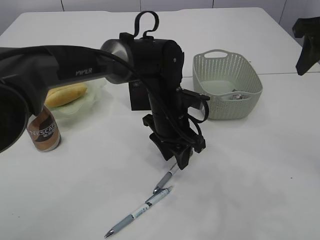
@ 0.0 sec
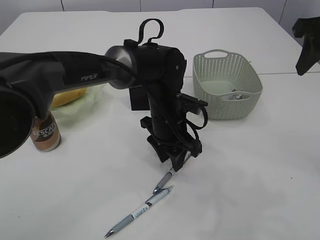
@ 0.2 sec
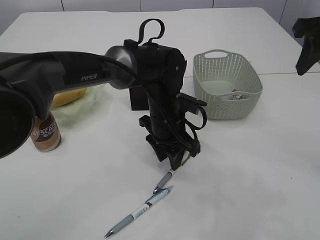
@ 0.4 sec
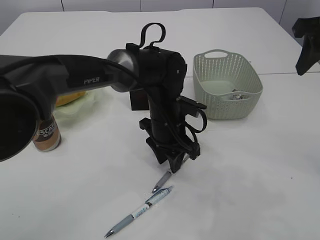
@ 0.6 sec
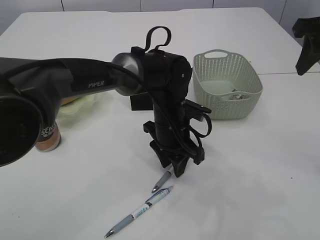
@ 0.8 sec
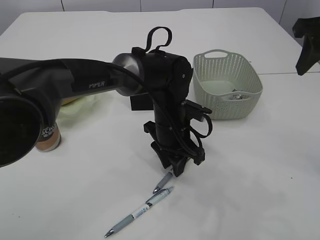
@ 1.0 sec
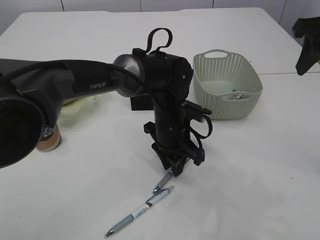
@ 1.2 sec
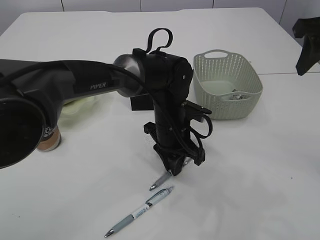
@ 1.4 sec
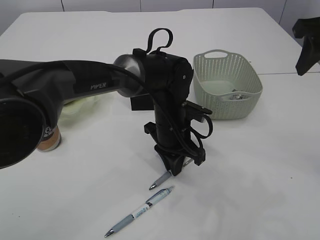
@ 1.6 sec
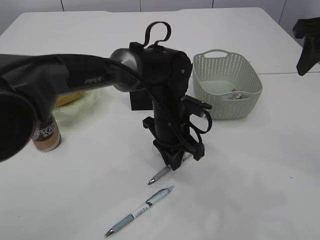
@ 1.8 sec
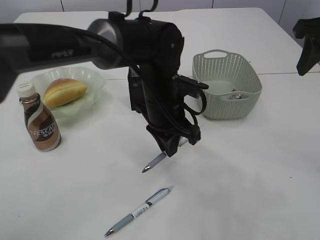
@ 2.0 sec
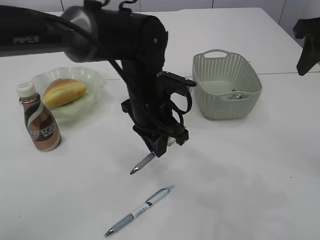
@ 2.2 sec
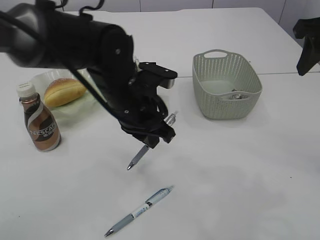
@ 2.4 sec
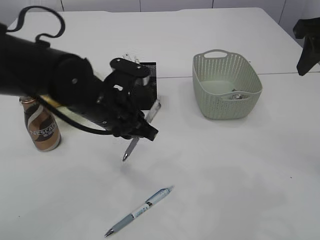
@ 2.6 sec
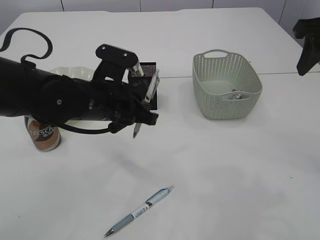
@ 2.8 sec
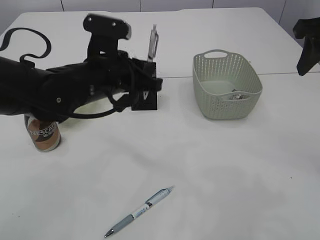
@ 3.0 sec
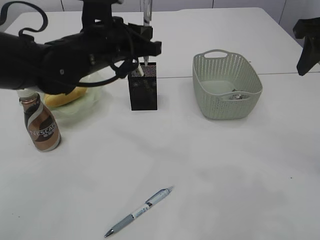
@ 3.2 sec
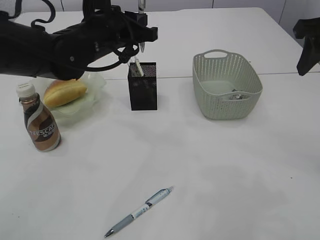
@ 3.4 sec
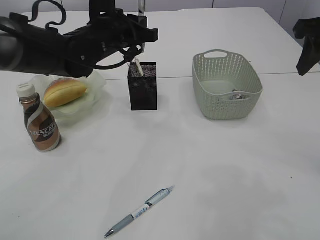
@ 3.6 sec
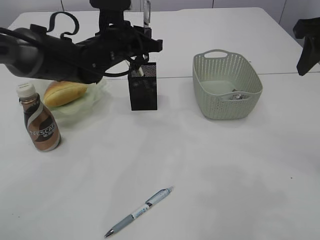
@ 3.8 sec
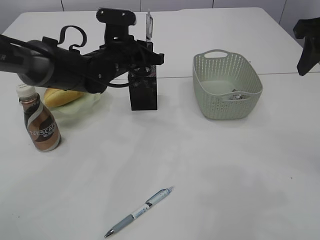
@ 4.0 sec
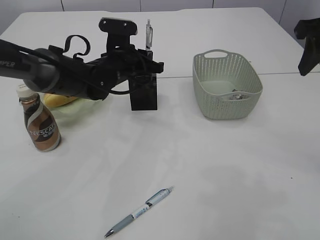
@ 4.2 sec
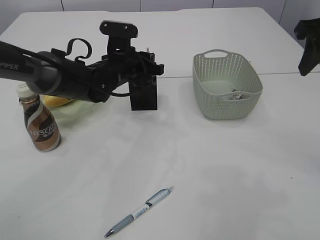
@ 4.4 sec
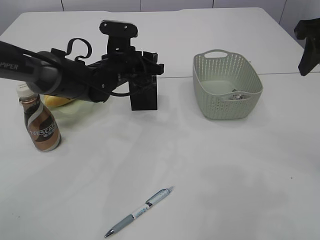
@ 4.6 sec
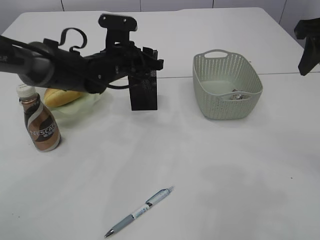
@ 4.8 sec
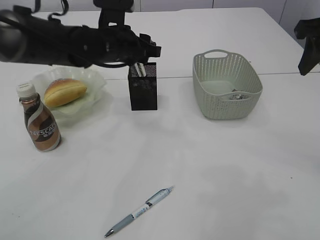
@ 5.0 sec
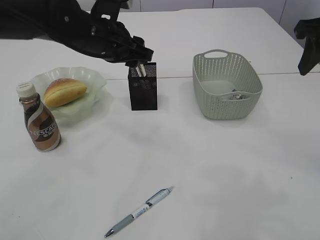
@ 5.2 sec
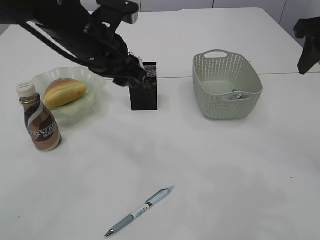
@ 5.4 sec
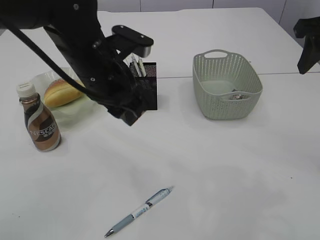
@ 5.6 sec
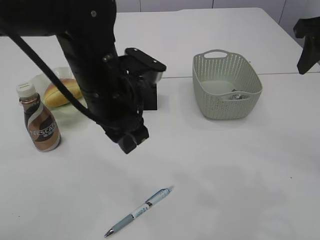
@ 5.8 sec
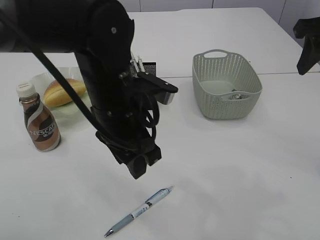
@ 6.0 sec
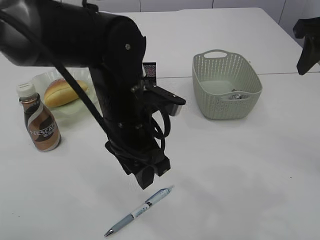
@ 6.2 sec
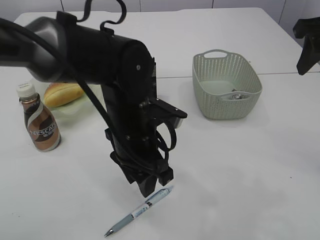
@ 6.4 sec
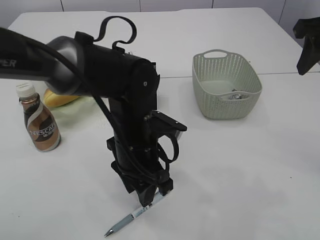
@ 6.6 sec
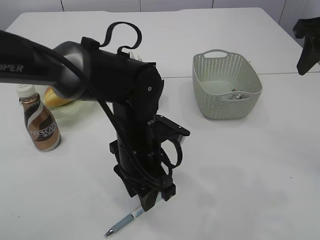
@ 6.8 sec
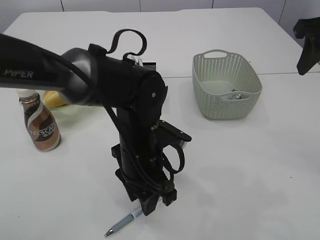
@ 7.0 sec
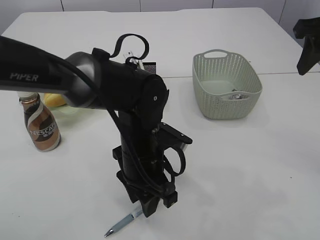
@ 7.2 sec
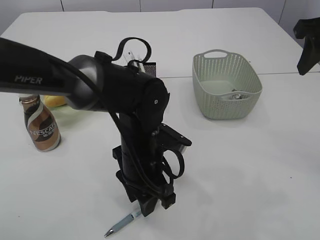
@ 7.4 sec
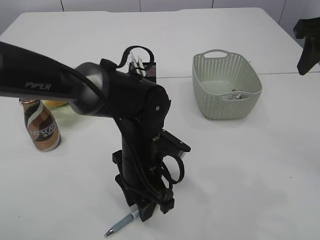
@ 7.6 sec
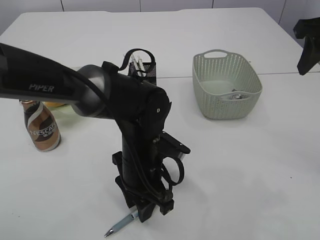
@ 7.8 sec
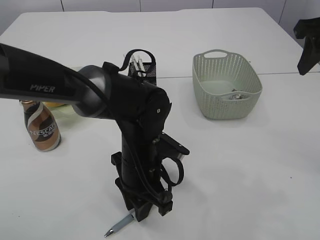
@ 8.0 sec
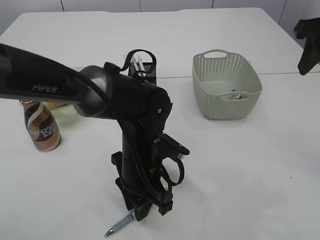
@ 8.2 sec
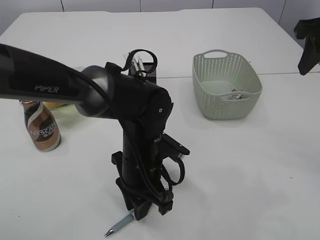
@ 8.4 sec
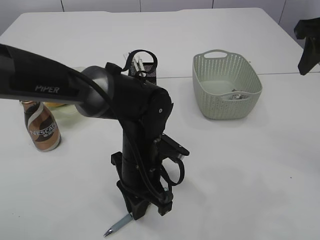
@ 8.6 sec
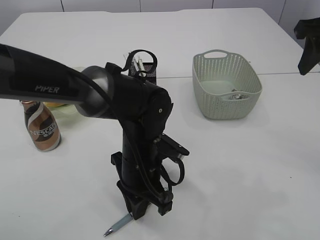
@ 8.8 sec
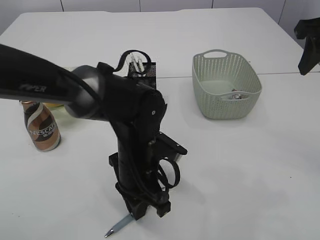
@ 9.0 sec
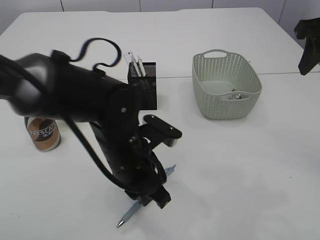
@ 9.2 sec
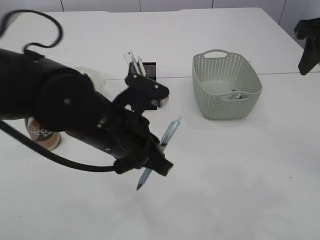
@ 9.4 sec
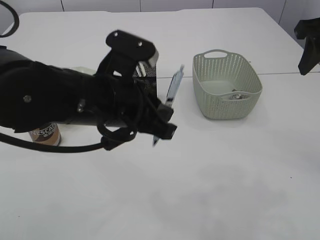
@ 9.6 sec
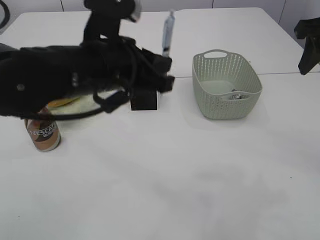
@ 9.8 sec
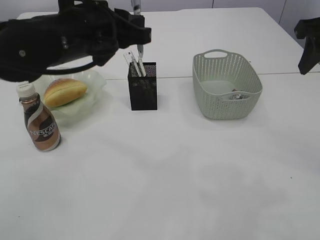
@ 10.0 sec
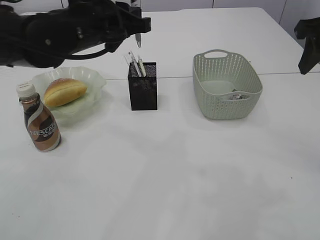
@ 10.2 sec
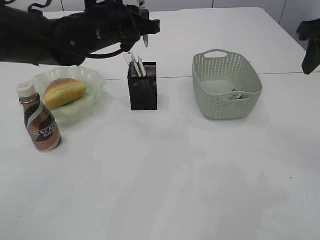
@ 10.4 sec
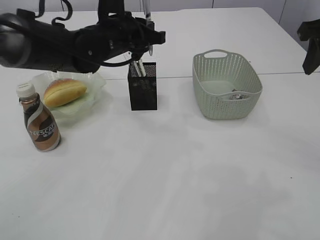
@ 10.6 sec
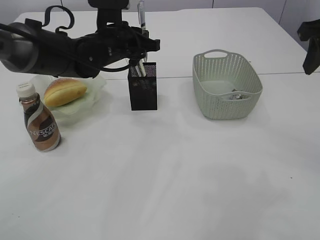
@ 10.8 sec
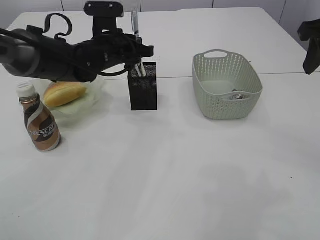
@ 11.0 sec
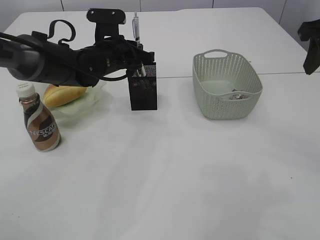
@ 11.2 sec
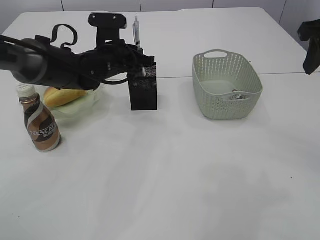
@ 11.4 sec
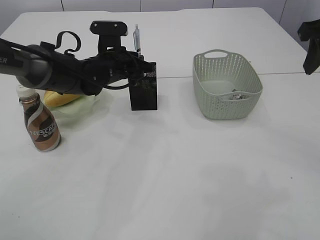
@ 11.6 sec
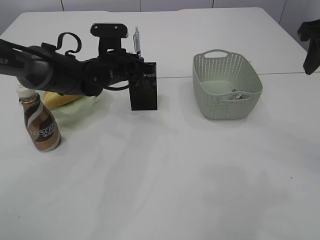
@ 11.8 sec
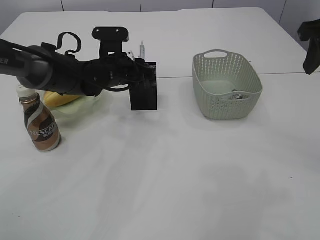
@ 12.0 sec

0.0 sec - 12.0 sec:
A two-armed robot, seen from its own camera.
Step, 0.0 sec - 2.0 sec: Pick up the pen with left arm.
Step, 2.2 sec - 5.0 sec: Place the pen into the pen holder.
Step, 5.2 sec - 9.0 sec: Pick up the pen with left arm.
0.0 sec - 1.6 sec: The left gripper closes up.
1.6 sec - 3.0 sec: The left gripper travels to the left and upward by about 15 cm.
3.0 sec - 4.4 sec: The left gripper travels forward and downward by about 15 cm.
4.4 sec - 6.0 sec: The left gripper is displaced backward by about 15 cm.
6.0 sec - 7.6 sec: The left gripper is displaced downward by about 10 cm.
7.6 sec - 9.0 sec: The left gripper closes.
9.0 sec - 10.4 sec: The left gripper goes about 20 cm upward and forward.
10.4 sec - 12.0 sec: The left gripper heads downward and forward, covering roughly 10 cm, and opens its fingers.

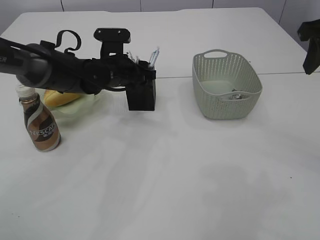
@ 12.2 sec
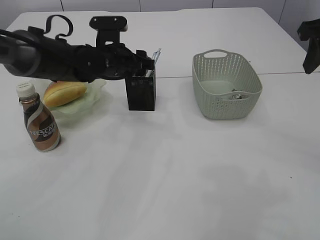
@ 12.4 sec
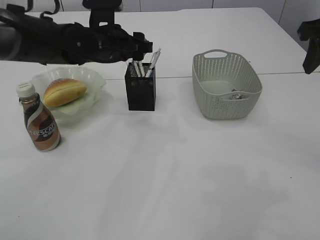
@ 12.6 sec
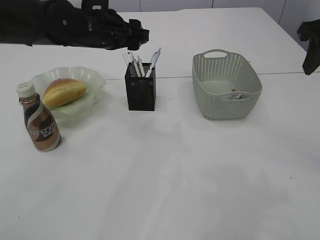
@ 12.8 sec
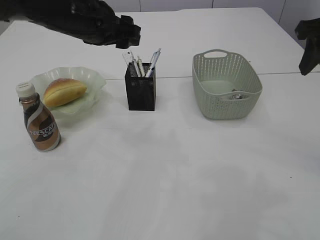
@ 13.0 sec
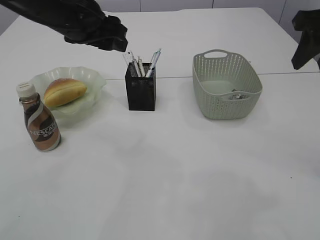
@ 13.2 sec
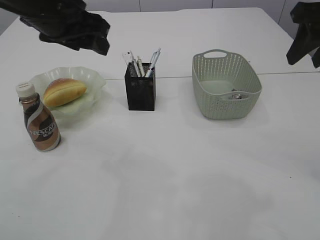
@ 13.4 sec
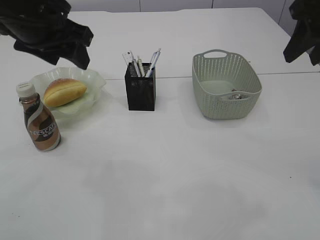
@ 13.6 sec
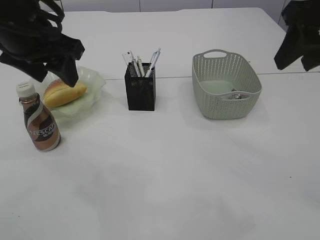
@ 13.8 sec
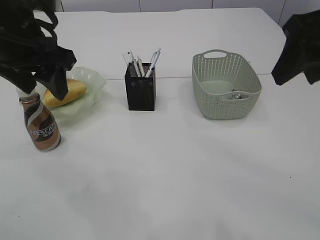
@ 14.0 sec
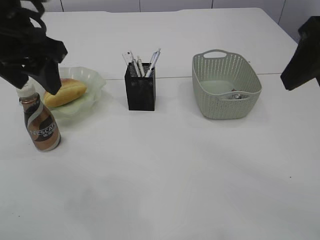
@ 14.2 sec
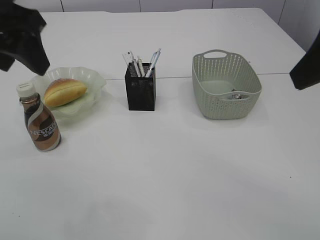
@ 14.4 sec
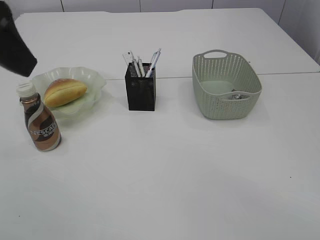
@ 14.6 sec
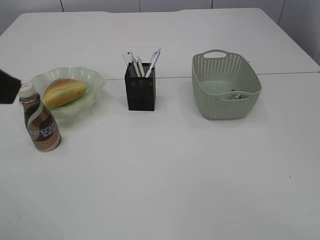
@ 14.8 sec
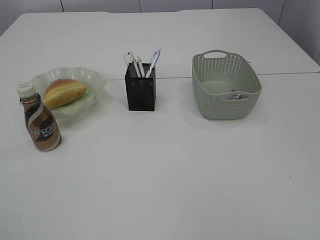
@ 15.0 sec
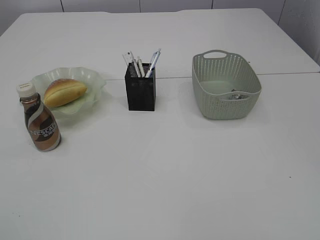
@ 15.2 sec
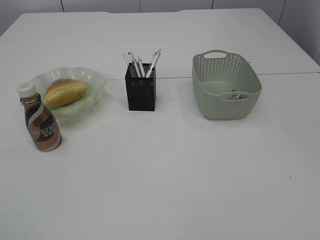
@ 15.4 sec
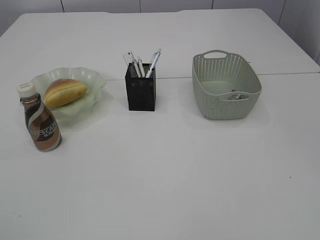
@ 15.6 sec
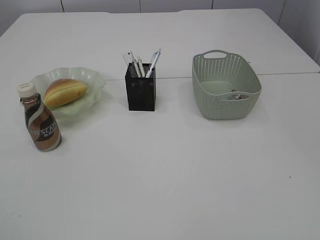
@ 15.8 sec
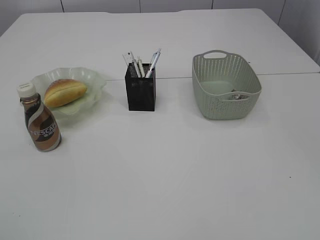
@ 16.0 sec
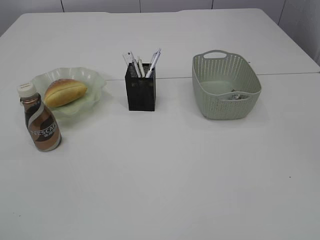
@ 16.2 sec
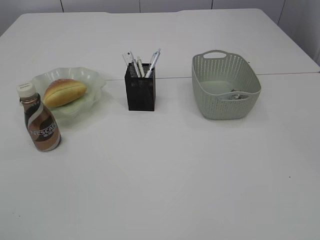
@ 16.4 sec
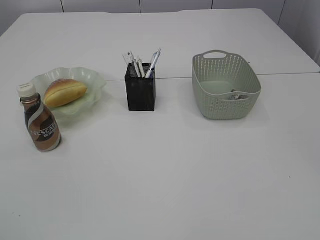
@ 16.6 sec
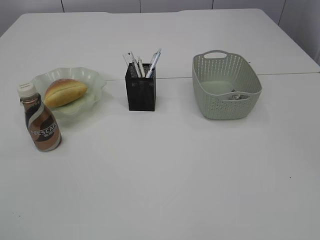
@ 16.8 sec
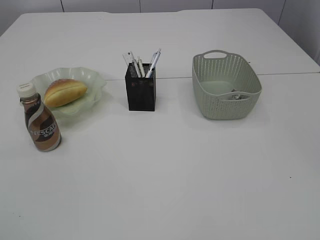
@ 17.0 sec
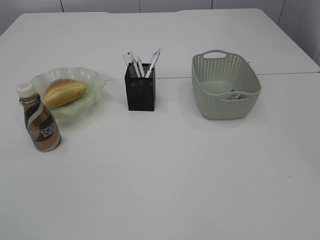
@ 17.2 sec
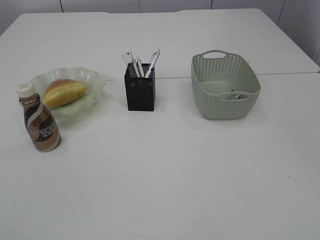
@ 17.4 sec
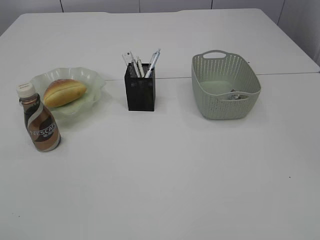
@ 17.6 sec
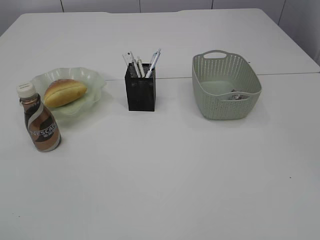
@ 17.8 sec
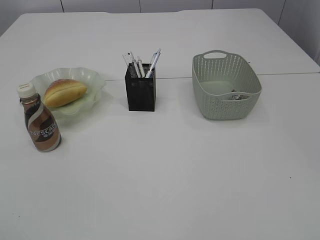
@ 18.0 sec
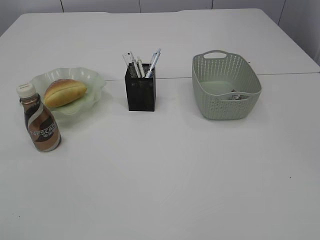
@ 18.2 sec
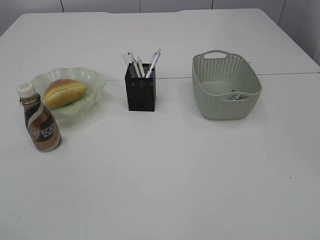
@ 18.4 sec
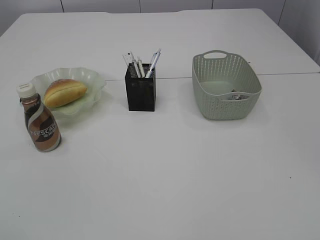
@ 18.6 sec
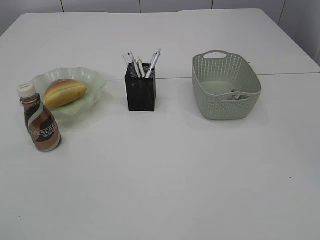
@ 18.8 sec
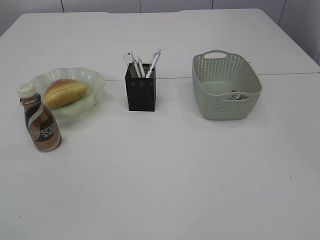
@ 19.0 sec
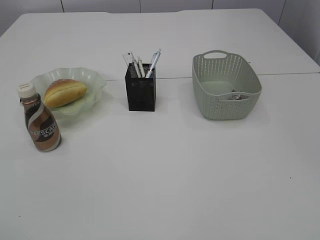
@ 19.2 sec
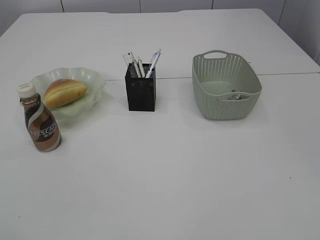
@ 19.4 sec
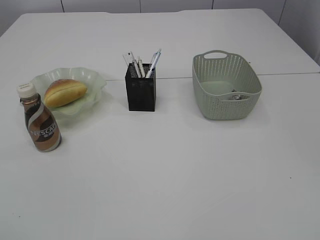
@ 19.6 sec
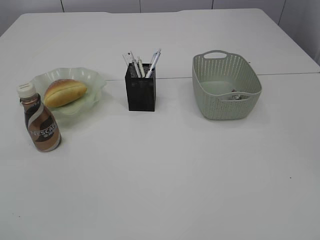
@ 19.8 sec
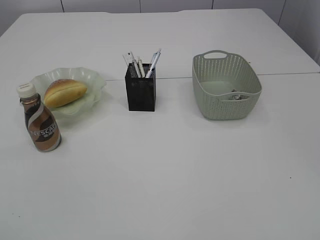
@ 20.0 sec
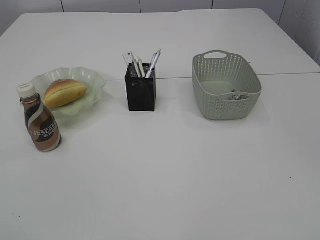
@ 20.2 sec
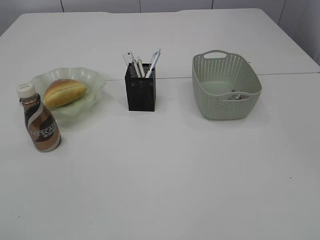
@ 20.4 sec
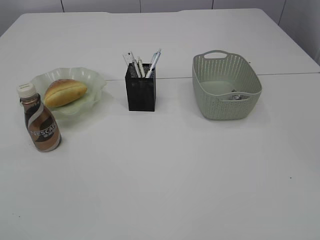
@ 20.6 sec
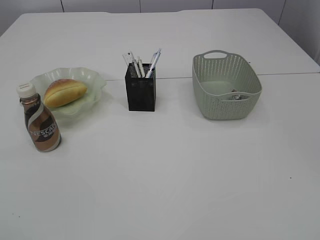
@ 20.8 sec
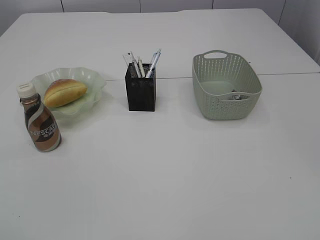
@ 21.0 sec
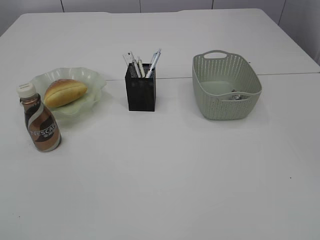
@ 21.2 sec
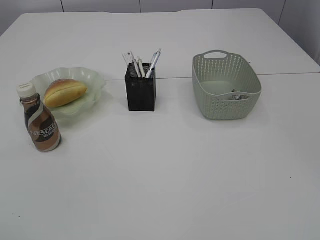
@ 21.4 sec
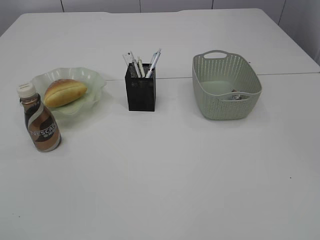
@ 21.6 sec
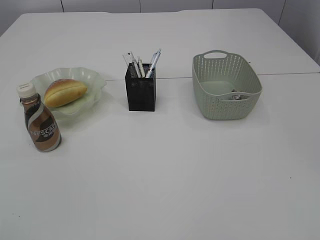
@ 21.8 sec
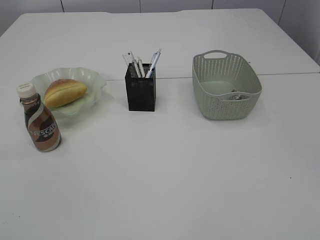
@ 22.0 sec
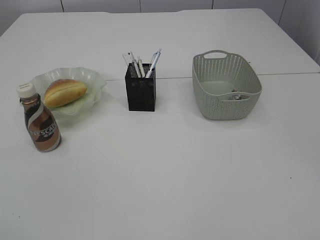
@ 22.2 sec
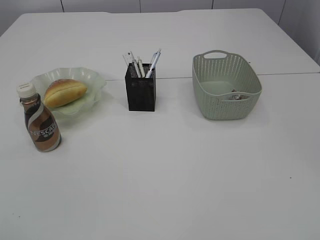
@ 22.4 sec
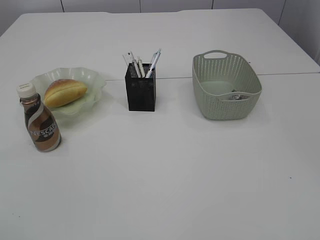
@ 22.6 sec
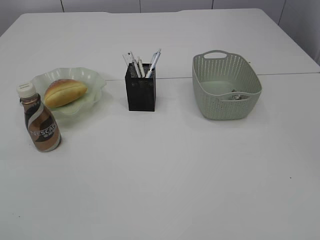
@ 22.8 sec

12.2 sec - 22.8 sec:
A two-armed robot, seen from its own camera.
12.2 sec - 13.8 sec: The left gripper shifts about 20 cm upward, backward and to the left, while the right gripper heads to the left, covering approximately 5 cm.
13.8 sec - 15.2 sec: The left gripper travels backward and to the left by some 25 cm. Meanwhile the right gripper heads backward, covering about 25 cm.
18.2 sec - 19.8 sec: The two grippers keep their place.
21.2 sec - 22.8 sec: The two grippers keep their place.
